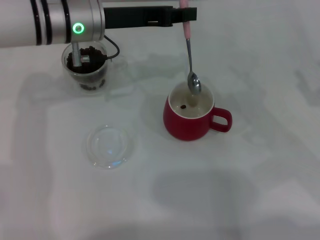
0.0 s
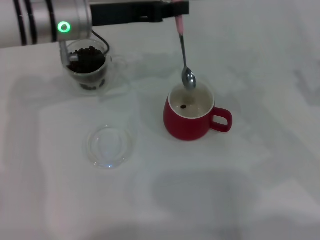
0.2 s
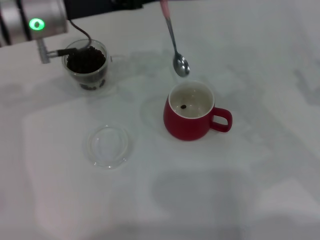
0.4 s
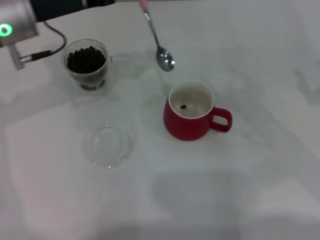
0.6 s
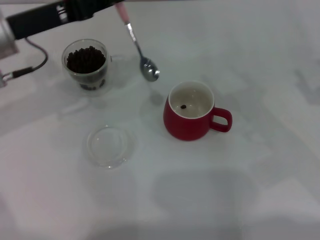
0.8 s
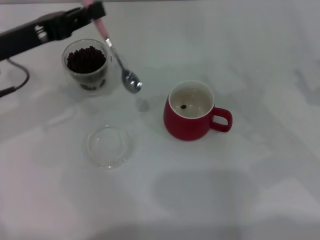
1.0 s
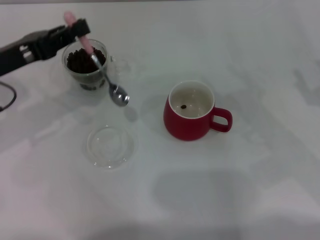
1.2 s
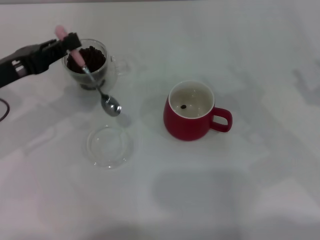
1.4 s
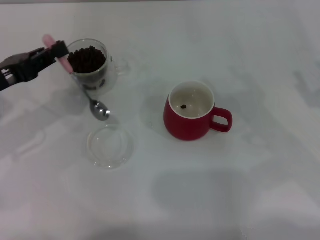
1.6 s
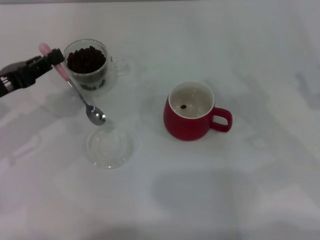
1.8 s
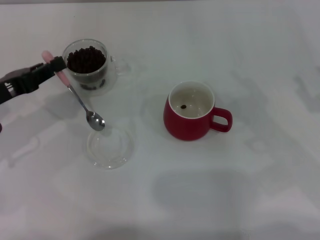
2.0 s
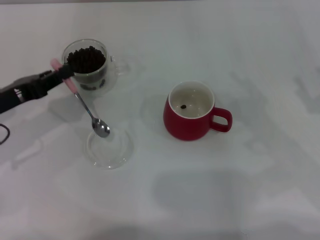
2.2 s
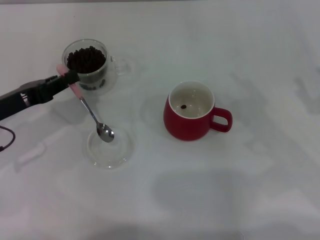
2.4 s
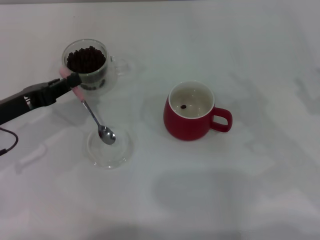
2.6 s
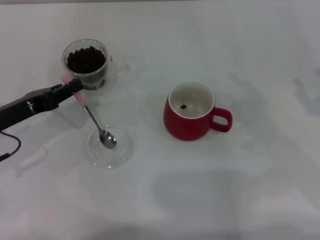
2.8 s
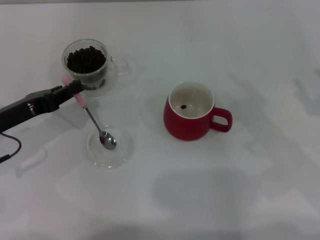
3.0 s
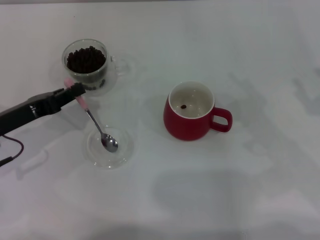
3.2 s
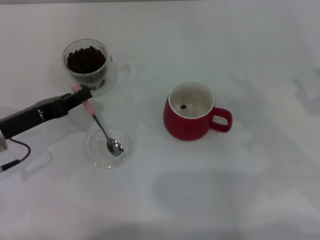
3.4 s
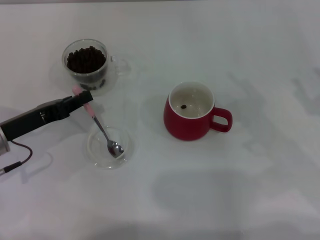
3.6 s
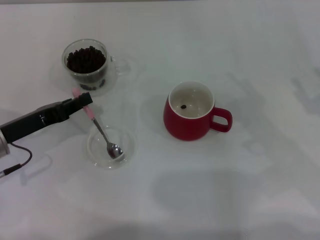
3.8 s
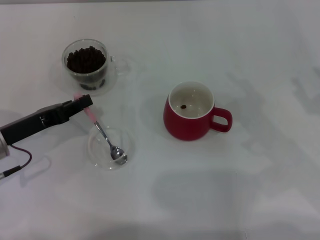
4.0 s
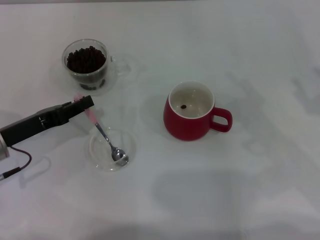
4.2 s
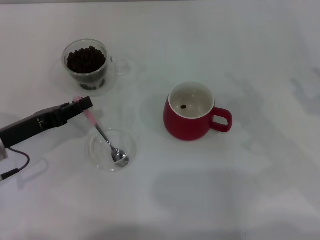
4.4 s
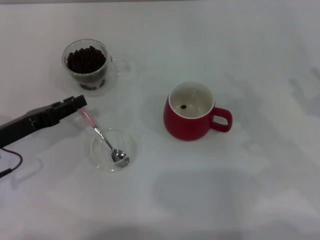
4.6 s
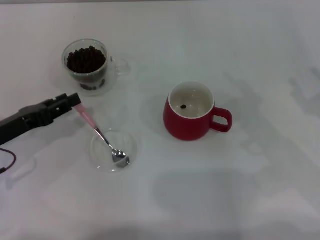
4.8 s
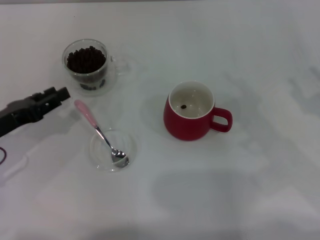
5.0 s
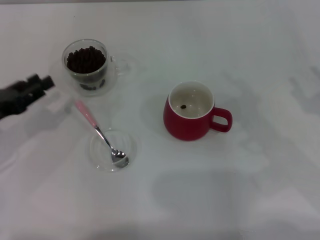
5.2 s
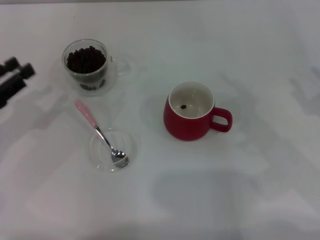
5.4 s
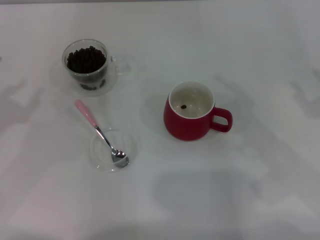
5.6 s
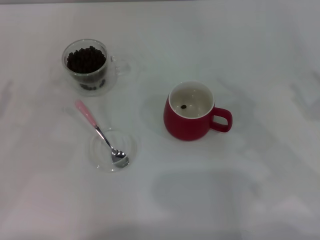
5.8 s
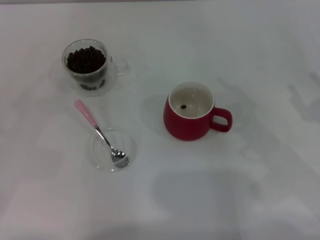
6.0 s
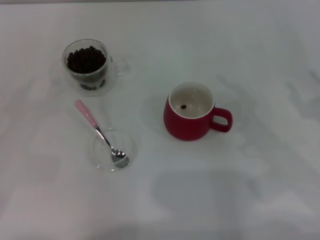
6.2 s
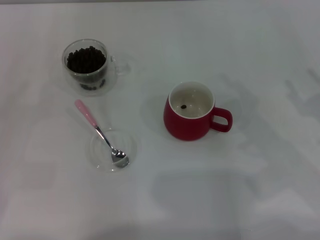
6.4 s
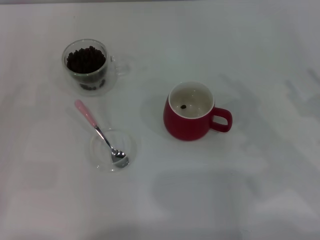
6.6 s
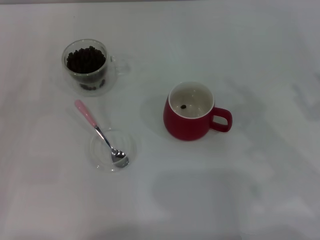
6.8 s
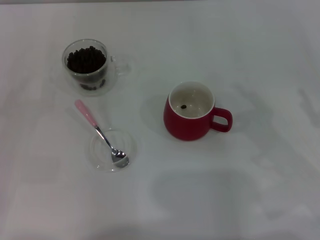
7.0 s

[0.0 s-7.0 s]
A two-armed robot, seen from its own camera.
Task of the whole recording: Use a pink spoon to take out the coffee beans from the glass and pour them into the red cup.
0.0 to 1.4 s: The left gripper moves to the left and backward, some 20 cm.
1.4 to 2.8 s: The left gripper goes about 5 cm downward.
2.8 to 4.2 s: The grippers make only small movements.
4.2 to 5.6 s: The left gripper travels to the left by about 10 cm, and opens up.
